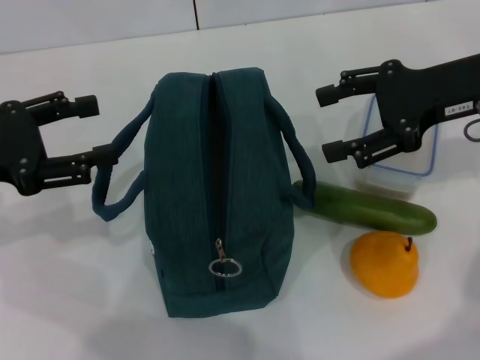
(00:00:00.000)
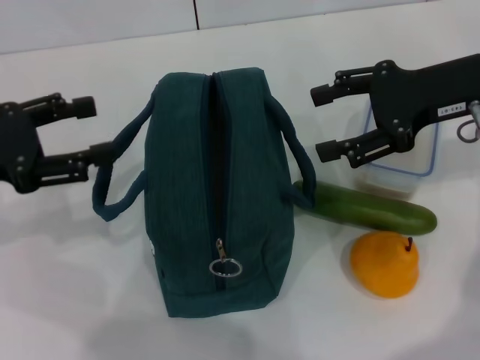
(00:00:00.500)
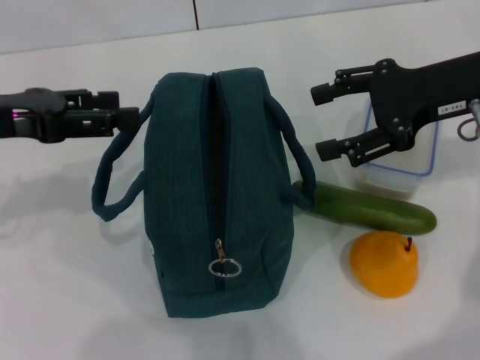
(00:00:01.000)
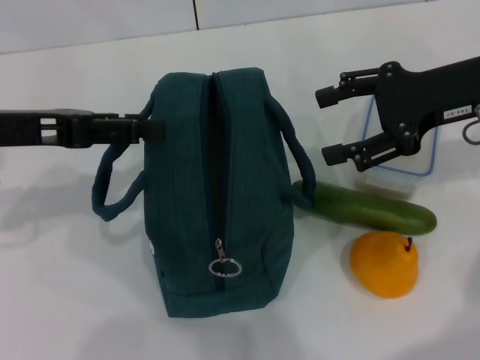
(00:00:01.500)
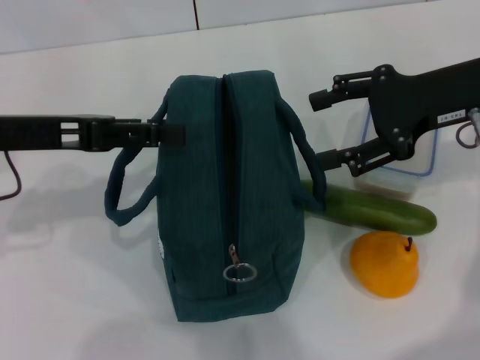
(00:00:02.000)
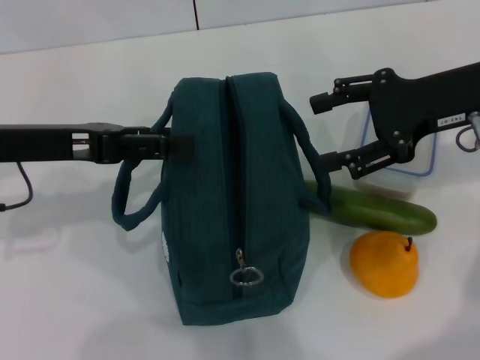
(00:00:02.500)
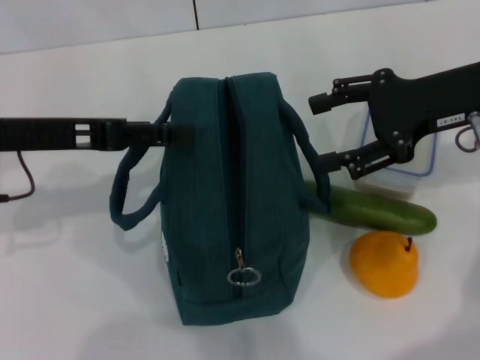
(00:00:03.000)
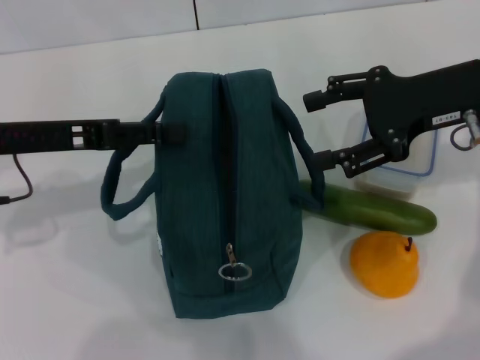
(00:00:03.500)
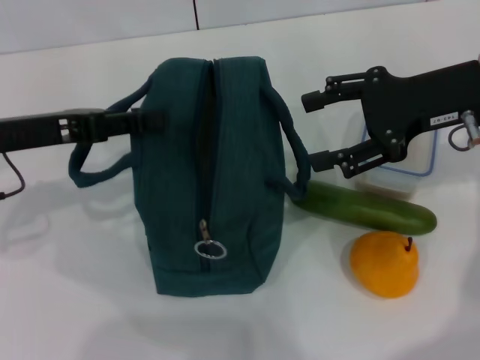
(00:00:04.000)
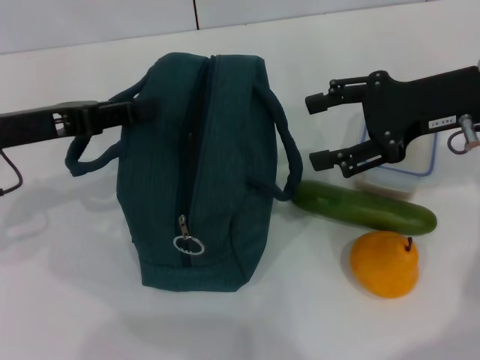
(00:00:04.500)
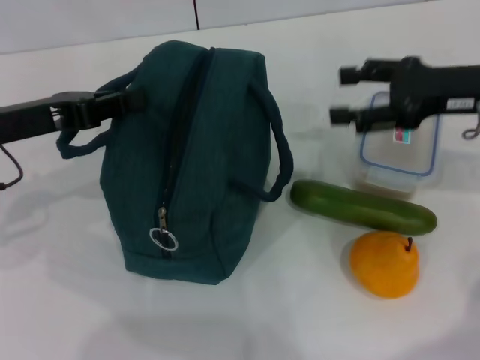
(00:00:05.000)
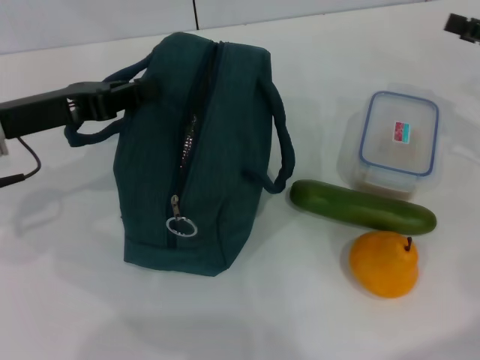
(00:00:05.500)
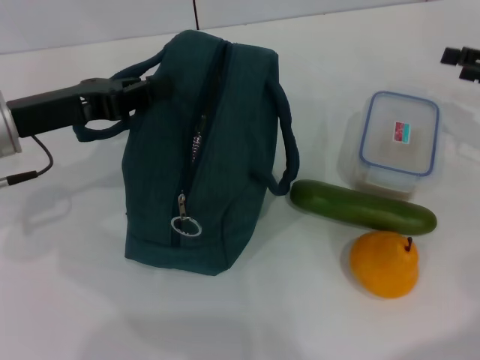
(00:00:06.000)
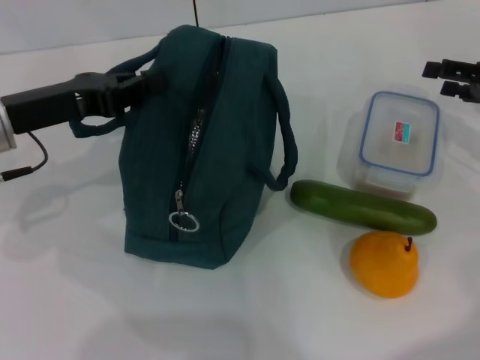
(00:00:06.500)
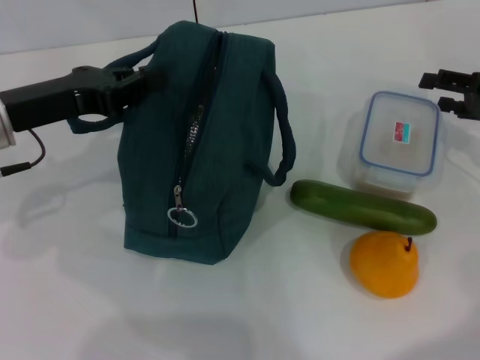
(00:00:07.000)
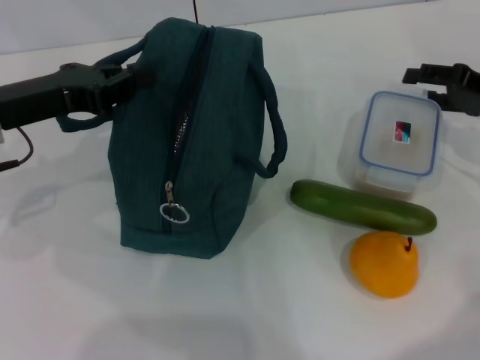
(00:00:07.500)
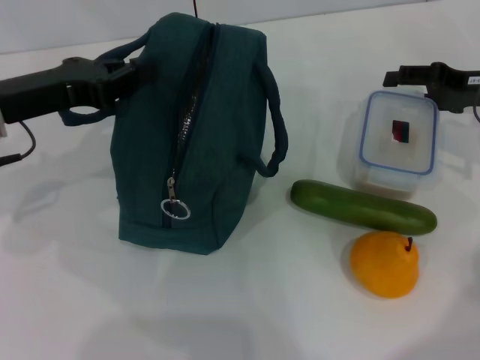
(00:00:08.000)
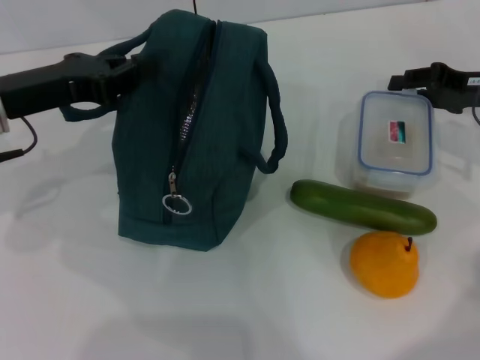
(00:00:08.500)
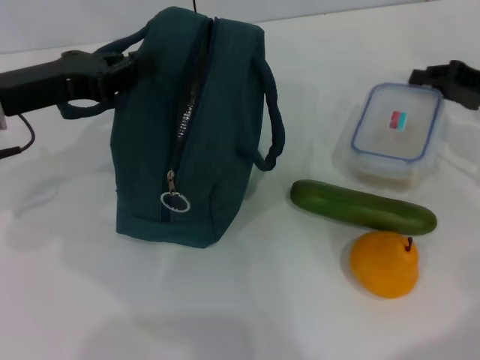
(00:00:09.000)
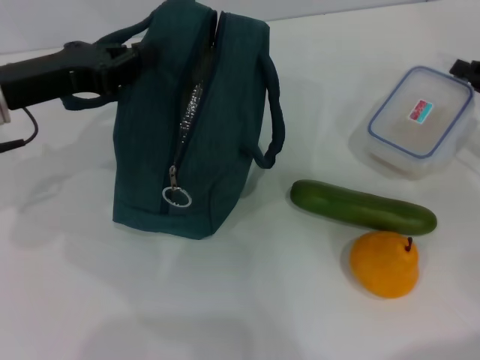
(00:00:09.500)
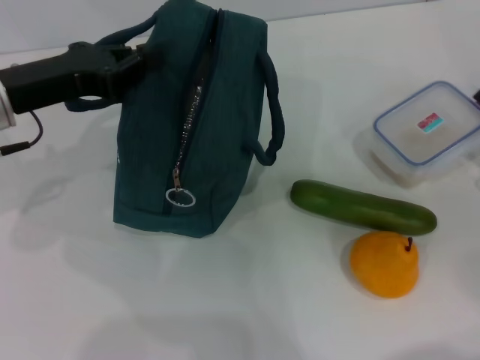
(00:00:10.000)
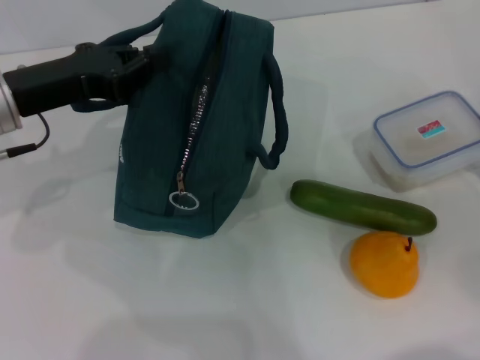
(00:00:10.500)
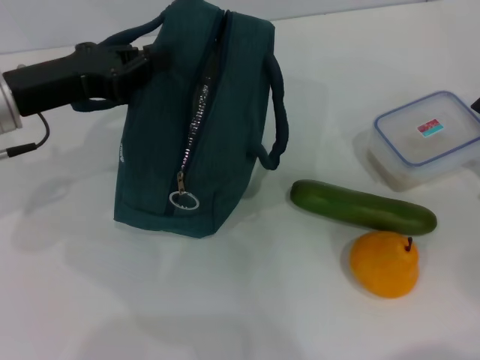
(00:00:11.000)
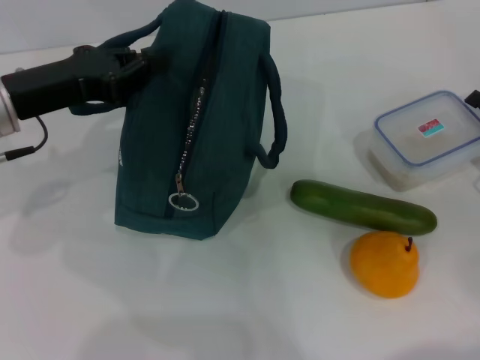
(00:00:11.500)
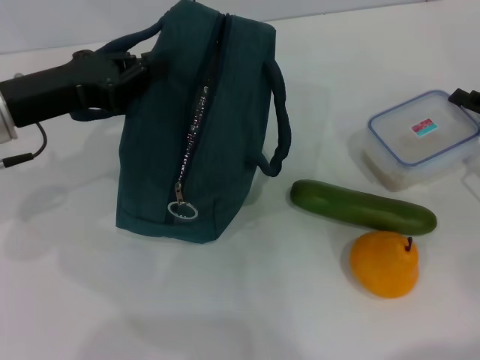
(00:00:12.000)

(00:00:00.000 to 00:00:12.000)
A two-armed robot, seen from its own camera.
Step, 00:00:00.000 - 00:00:03.500: Hold the lunch bag with your left hand.
00:00:00.000 - 00:00:02.000: The left gripper heads to the right, covering about 5 cm.
00:00:02.000 - 00:00:04.000: There are only small adjustments of the grippers.
00:00:04.000 - 00:00:06.000: The left gripper closes up. Meanwhile the right gripper shifts some 15 cm to the right and downward.
00:00:06.000 - 00:00:08.000: The right gripper is displaced to the left by approximately 5 cm.
00:00:08.000 - 00:00:10.000: The right gripper is displaced backward and downward by some 10 cm, and closes its fingers.
00:00:10.000 - 00:00:12.000: The grippers stay close to where they were, moving slightly.

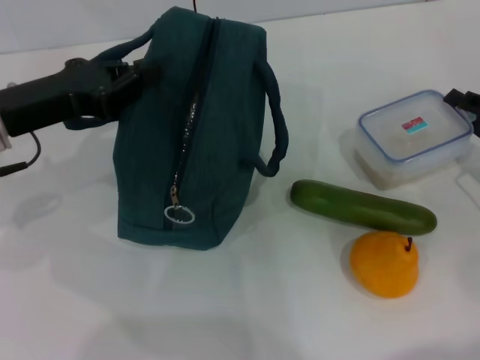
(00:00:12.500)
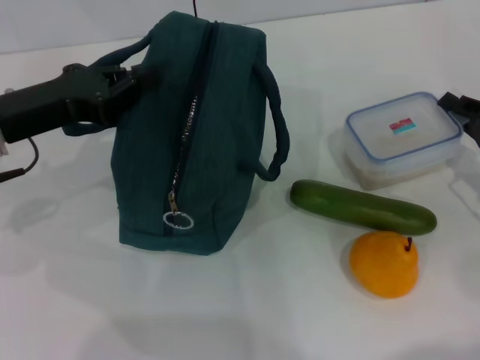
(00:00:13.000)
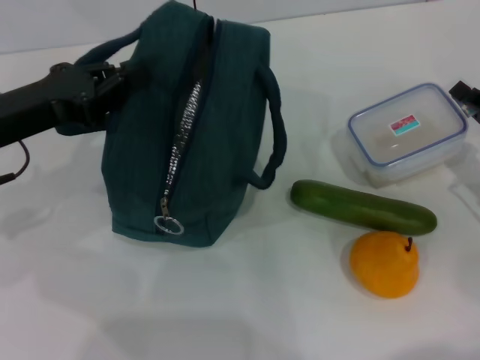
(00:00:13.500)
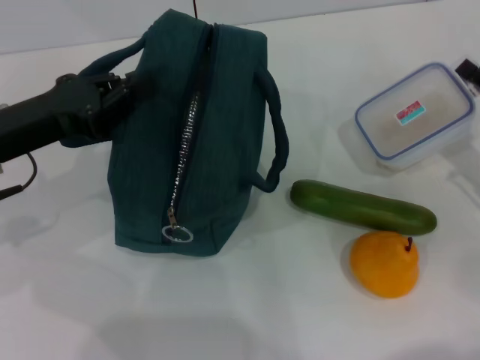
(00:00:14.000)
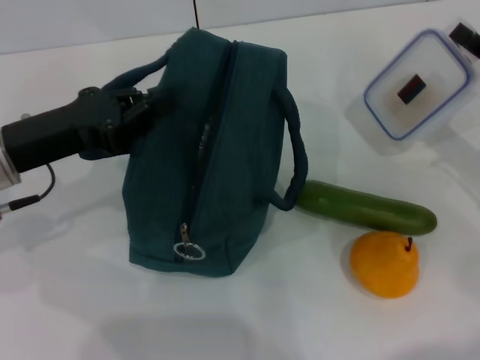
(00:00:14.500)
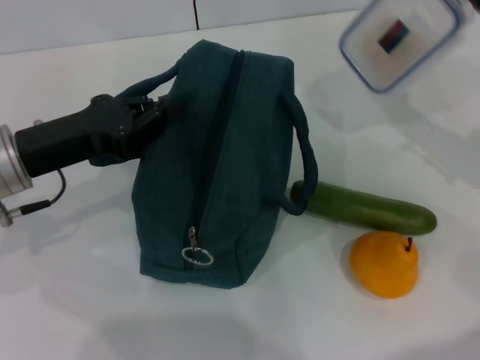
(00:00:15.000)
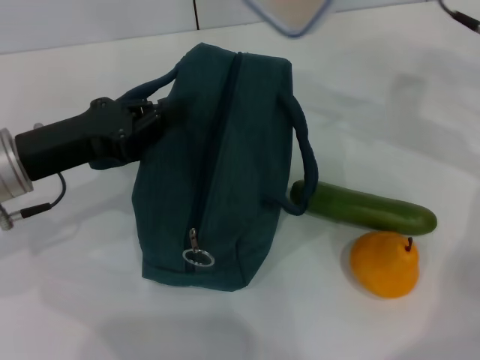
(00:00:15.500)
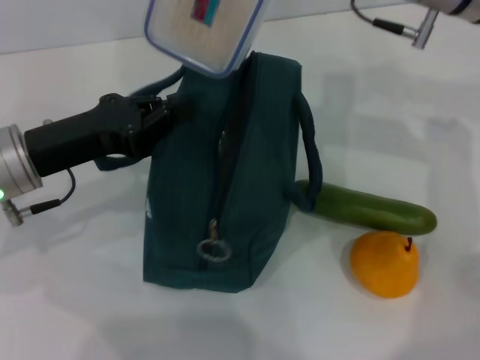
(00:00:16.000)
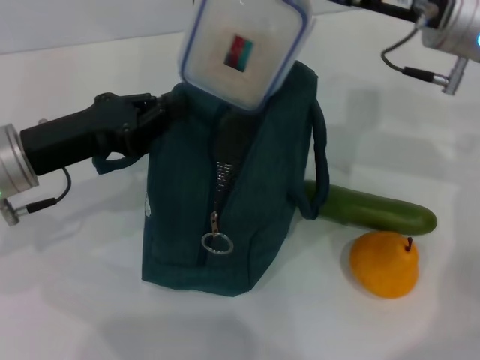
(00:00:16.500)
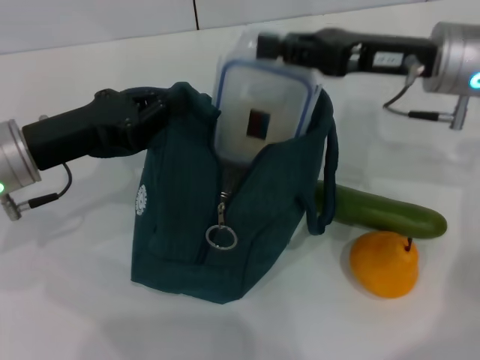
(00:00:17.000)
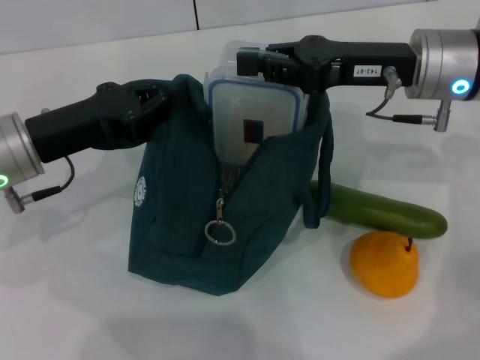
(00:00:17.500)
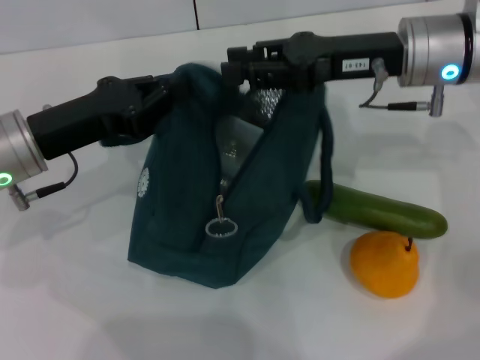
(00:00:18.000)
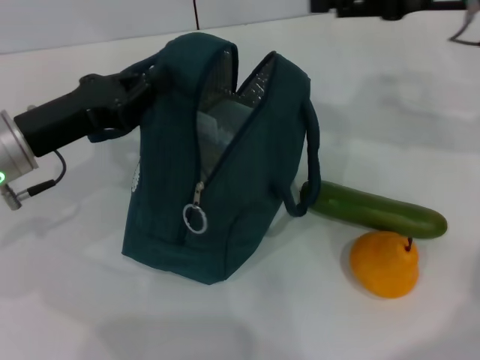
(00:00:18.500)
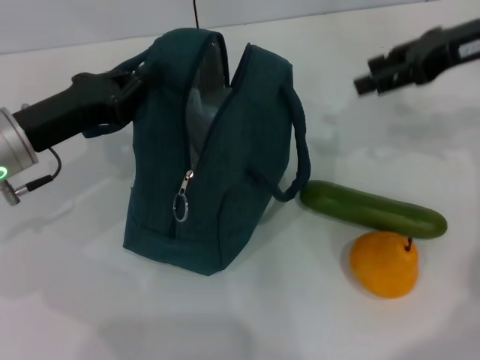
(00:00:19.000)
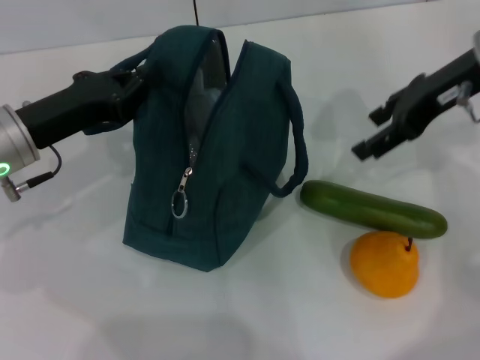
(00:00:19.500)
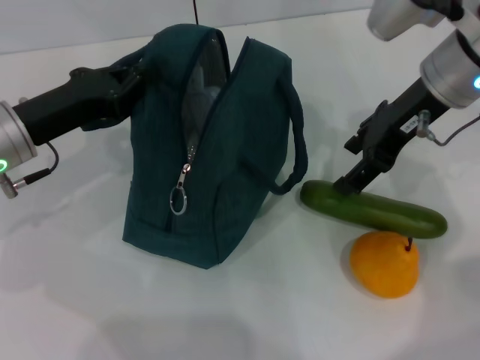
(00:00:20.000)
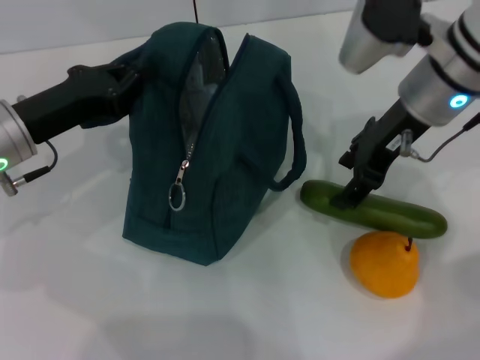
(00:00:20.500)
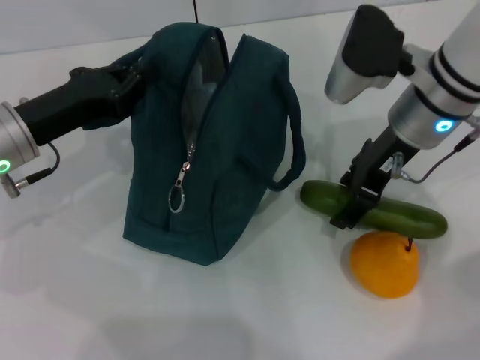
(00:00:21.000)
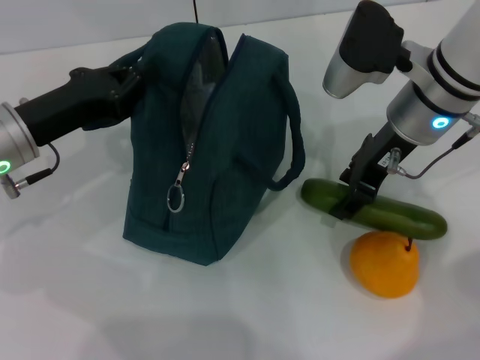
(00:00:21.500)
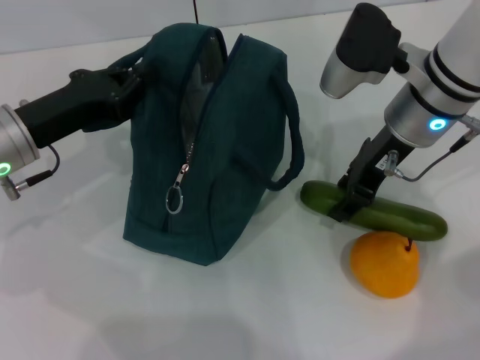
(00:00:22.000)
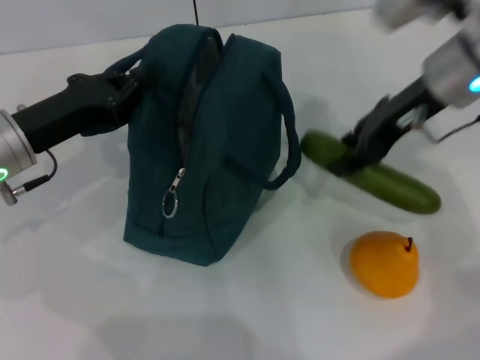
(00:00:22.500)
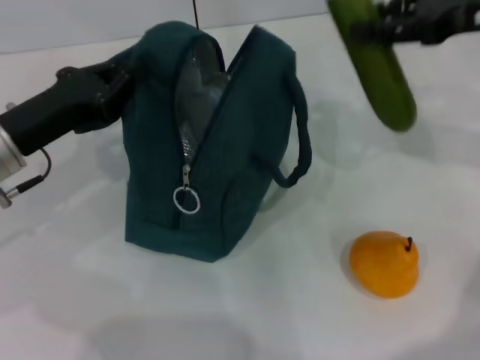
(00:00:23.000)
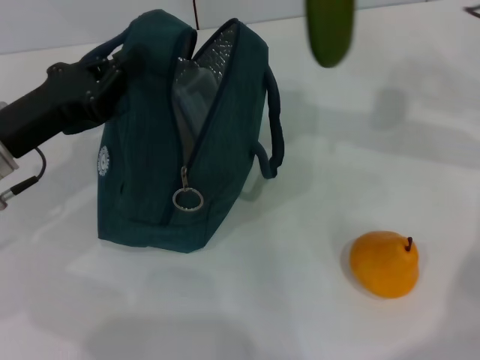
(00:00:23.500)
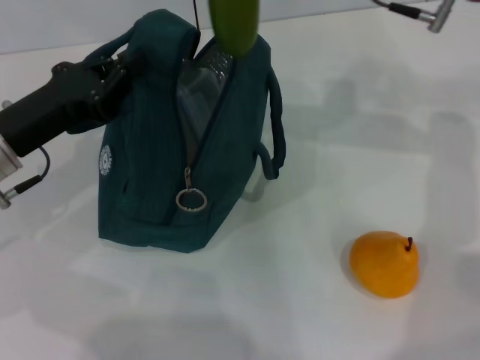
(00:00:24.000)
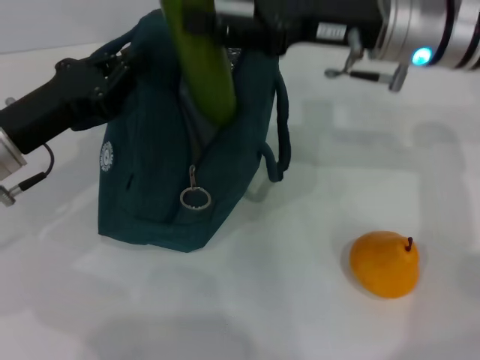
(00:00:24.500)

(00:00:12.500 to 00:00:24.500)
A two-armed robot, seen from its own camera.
Step, 00:00:13.500 - 00:00:18.000: Place the lunch box into the lunch bag with your right hand.
Step, 00:00:18.500 - 00:00:22.000: Pick up the cucumber with your right hand.
00:00:14.500 - 00:00:16.500: The right gripper goes about 20 cm to the left, upward and forward.
00:00:16.500 - 00:00:18.500: The right gripper is displaced to the right by roughly 5 cm, and opens its fingers.
00:00:18.500 - 00:00:20.500: The right gripper shifts some 10 cm to the left.
00:00:20.500 - 00:00:22.500: The grippers stay close to where they were, moving slightly.
00:00:22.500 - 00:00:24.500: The right gripper reaches roughly 10 cm to the right, then returns.

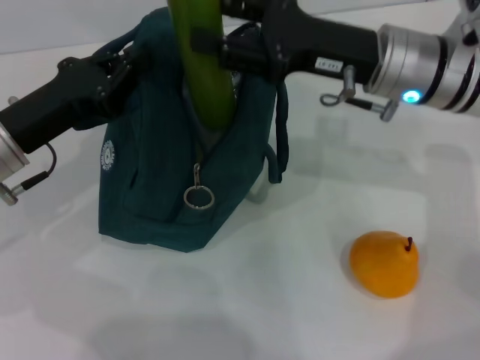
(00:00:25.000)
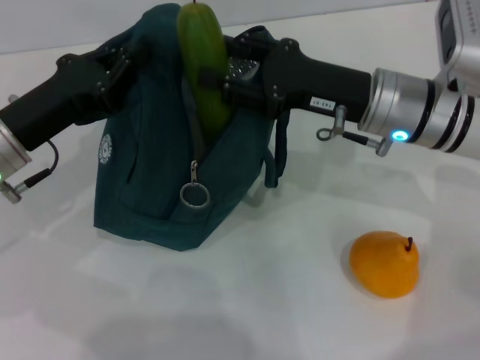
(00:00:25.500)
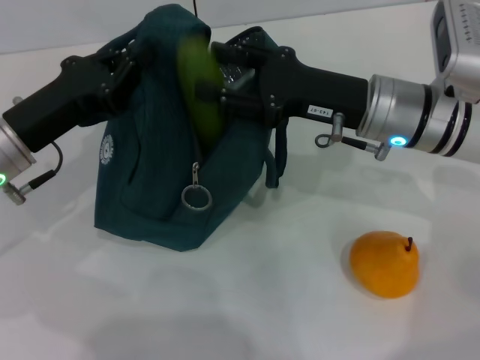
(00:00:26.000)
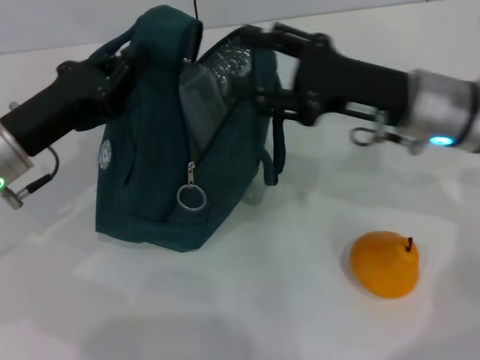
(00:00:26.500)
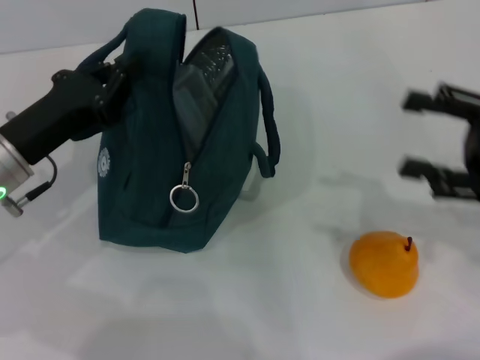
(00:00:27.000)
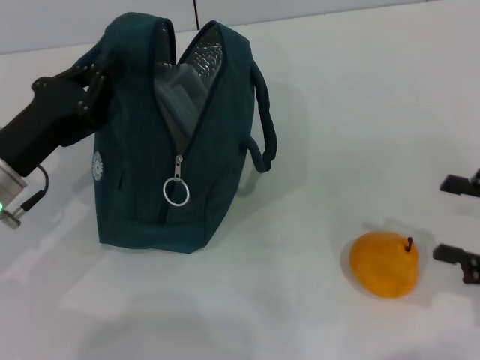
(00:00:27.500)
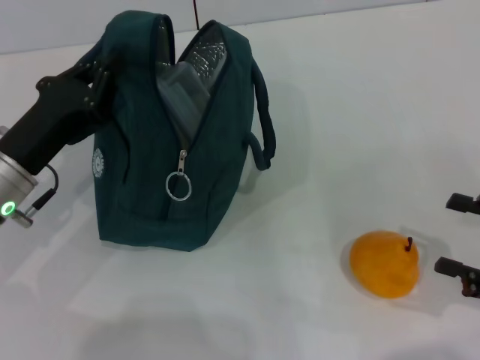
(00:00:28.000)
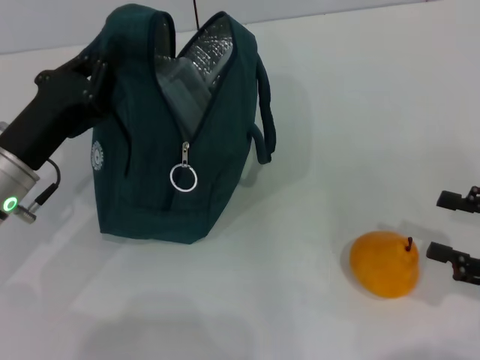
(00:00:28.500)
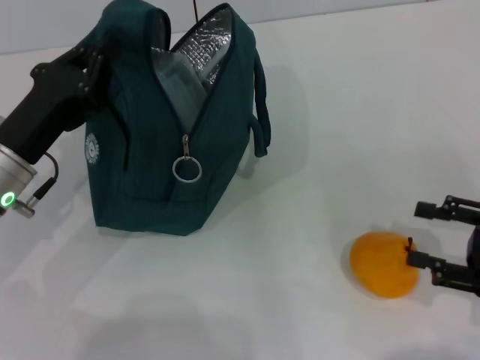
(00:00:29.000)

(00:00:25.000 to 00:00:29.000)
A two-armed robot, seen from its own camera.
00:00:25.000 - 00:00:27.000: The right gripper travels to the right and backward by approximately 20 cm.
00:00:27.000 - 00:00:29.000: The right gripper moves downward and backward, roughly 10 cm.
